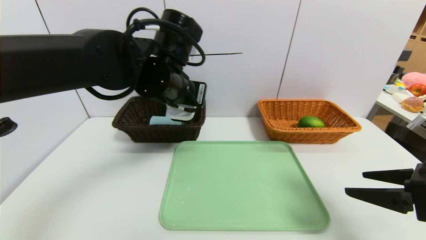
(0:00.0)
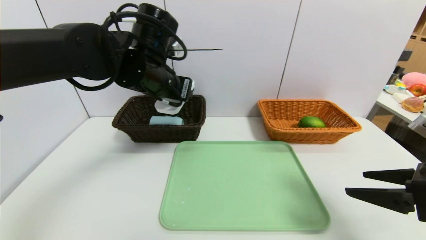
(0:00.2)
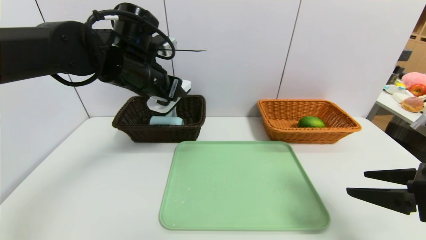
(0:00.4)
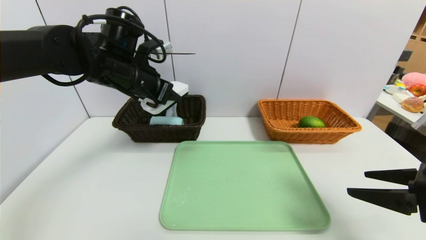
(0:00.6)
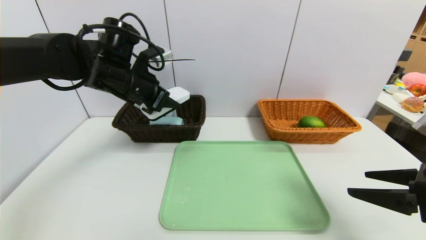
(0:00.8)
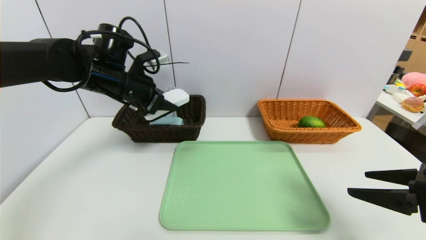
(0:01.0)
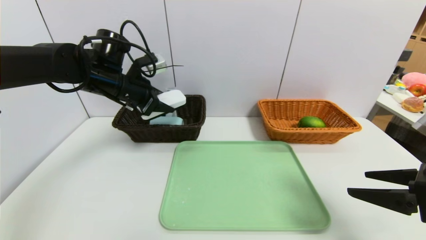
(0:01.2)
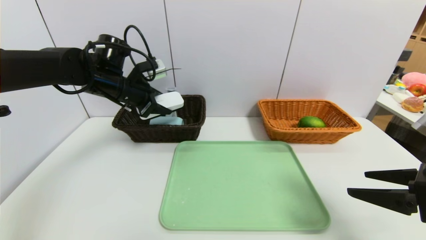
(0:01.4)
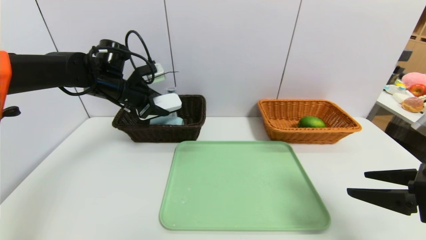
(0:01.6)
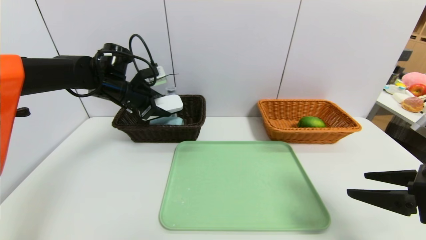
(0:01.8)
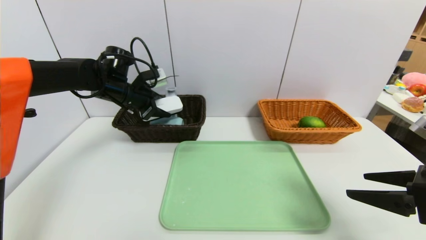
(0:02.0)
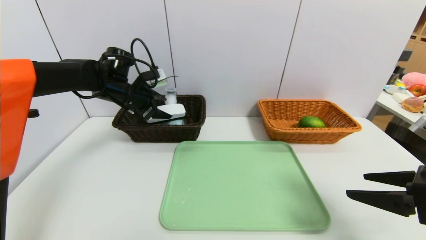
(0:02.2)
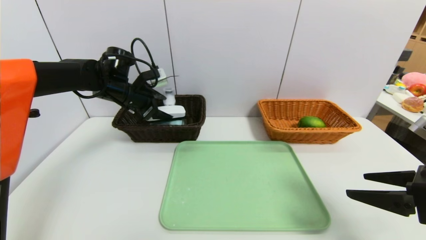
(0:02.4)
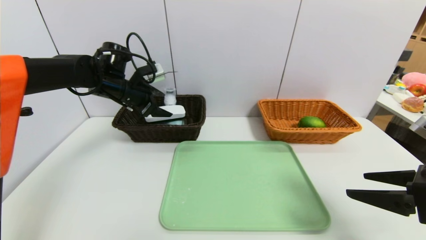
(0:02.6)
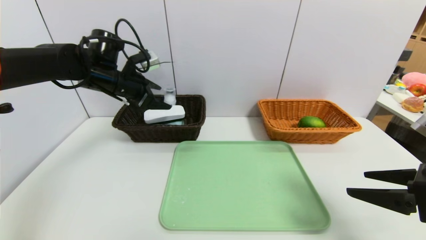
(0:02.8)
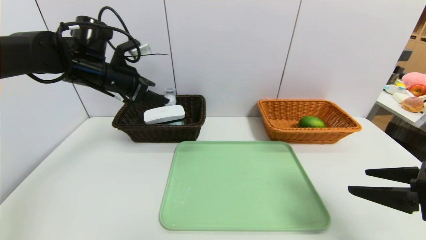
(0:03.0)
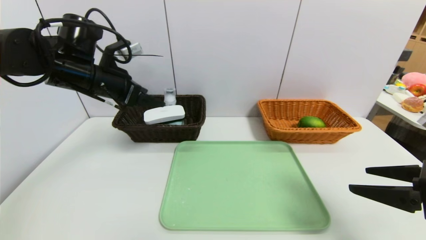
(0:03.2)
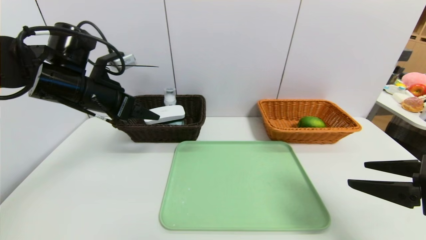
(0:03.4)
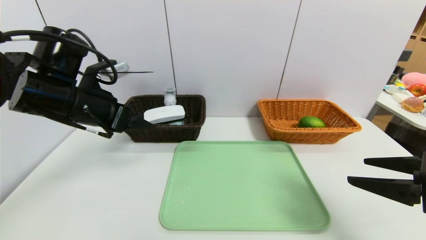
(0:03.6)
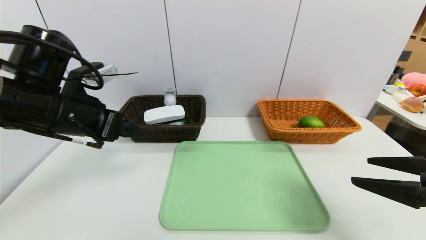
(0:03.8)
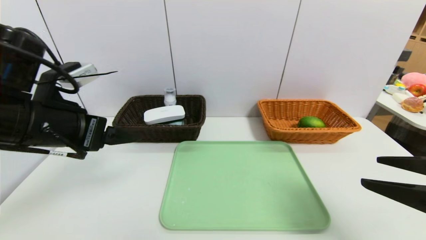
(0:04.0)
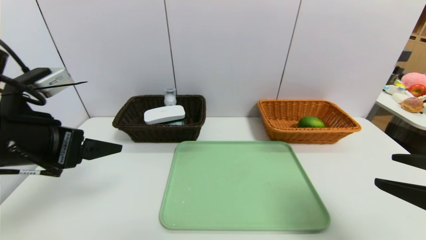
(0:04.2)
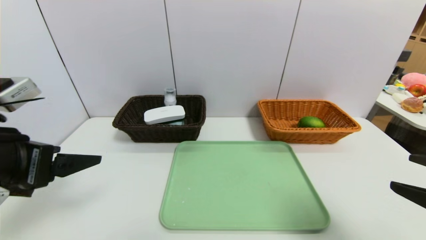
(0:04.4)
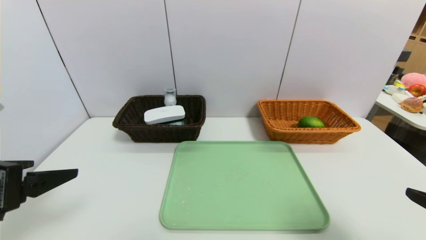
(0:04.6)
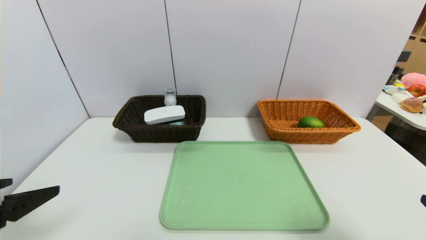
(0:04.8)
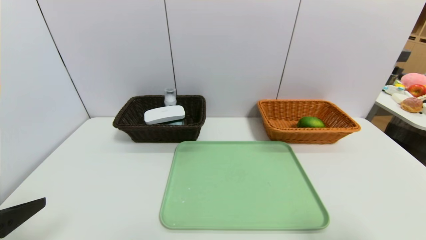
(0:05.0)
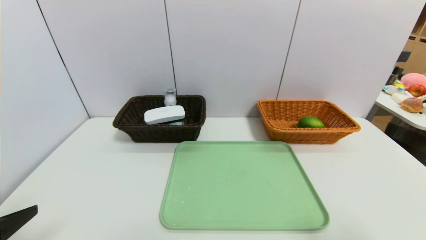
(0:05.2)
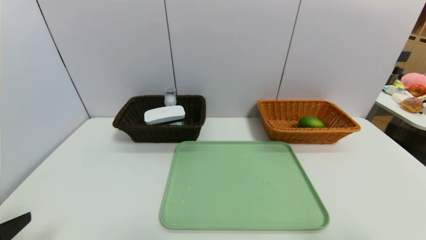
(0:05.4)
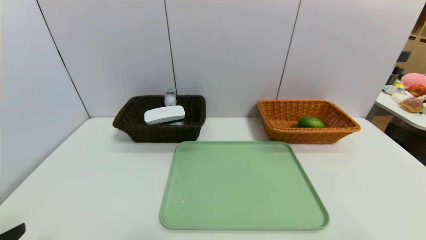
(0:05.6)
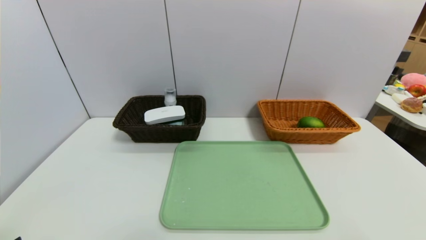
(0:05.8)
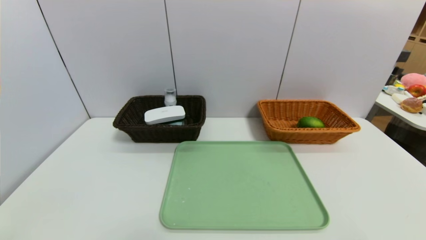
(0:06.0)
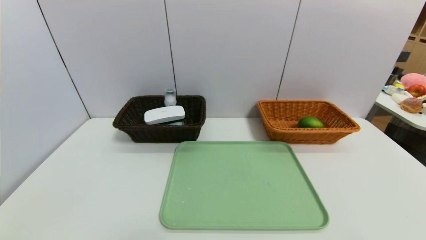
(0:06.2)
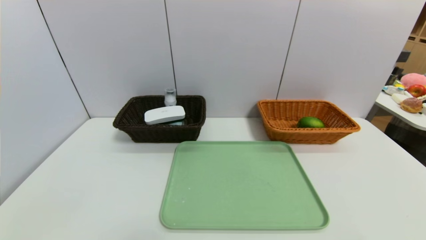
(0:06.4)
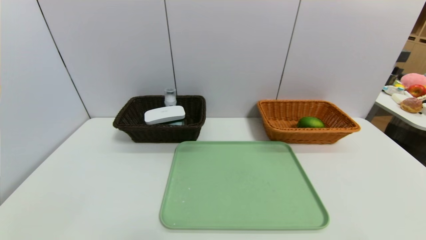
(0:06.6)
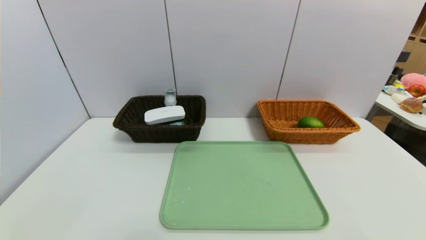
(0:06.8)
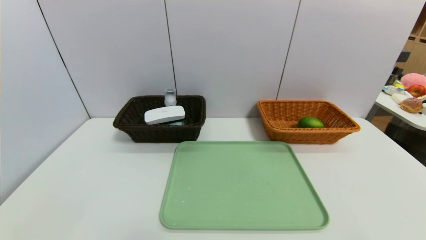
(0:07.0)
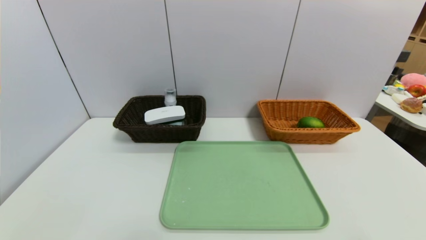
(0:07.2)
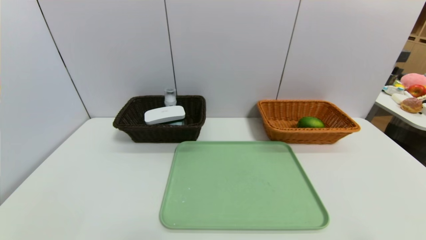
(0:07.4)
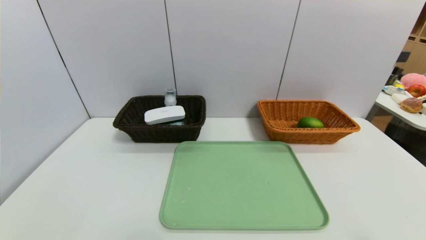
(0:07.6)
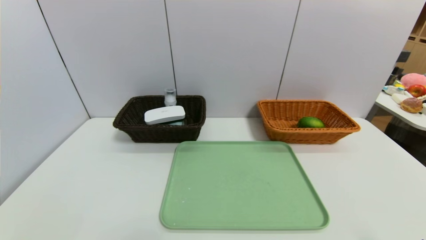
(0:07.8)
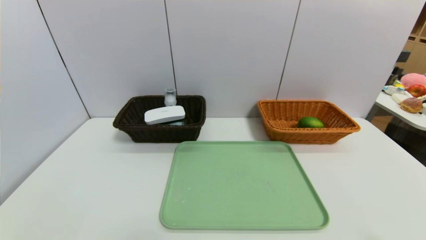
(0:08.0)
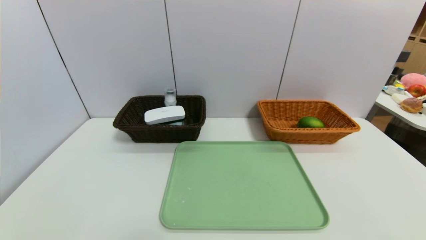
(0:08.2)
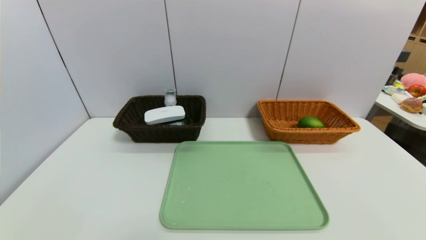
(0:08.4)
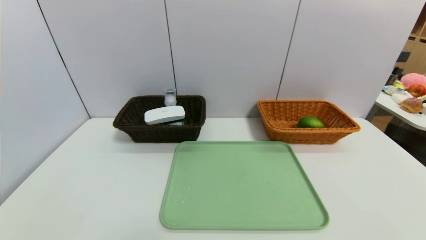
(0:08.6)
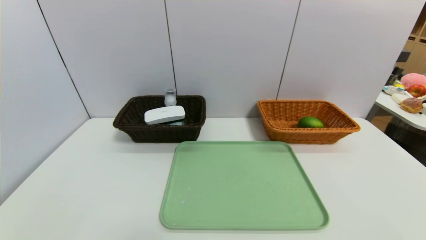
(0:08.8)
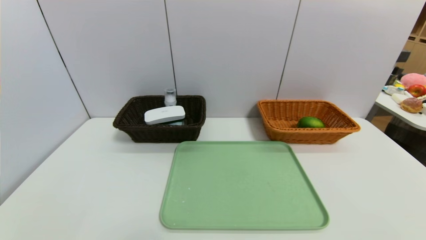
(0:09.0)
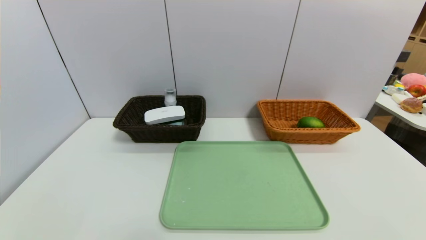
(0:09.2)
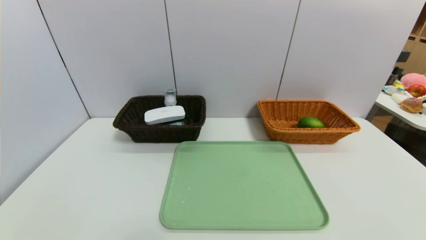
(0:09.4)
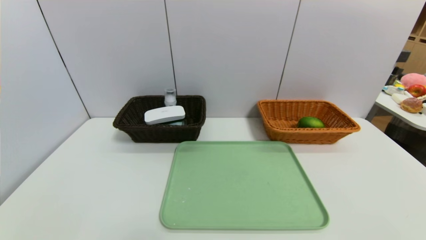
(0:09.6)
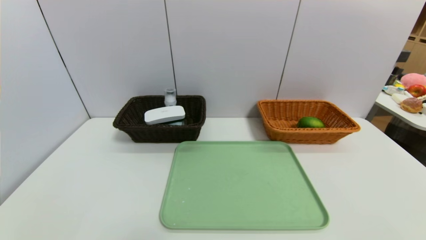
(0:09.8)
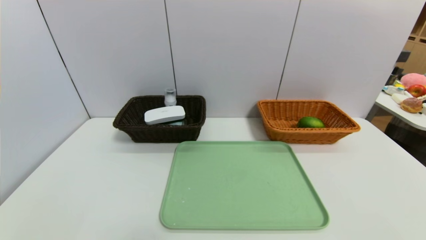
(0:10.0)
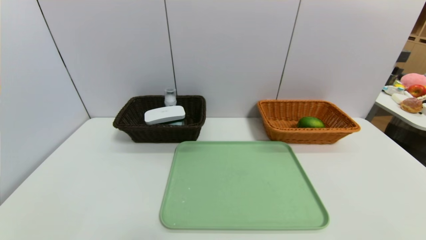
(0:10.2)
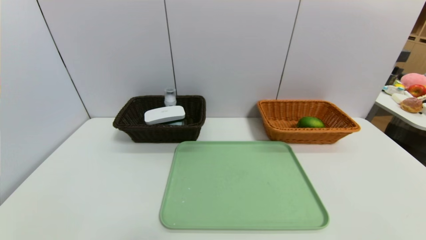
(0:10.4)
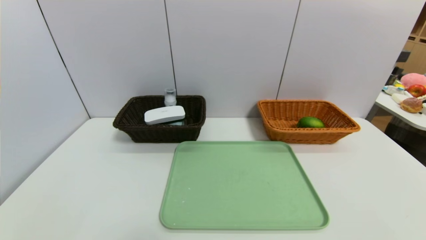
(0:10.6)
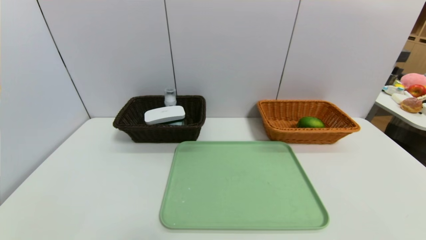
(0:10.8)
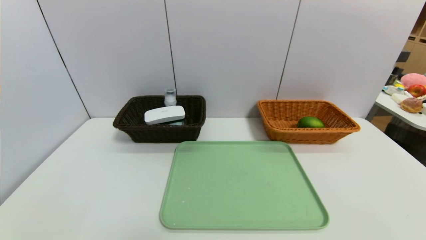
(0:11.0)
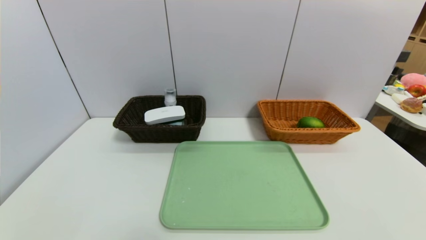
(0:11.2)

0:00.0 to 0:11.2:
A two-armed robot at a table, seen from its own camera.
Task of the whole recording: place the food in the right basket with the right gripper, and place the non food items in the left basket with the left gripper.
Step, 0:00.0 to 0:03.2: Grasp the white eraser and put it in the left basket.
0:00.0 to 0:01.6: The left gripper travels to the left and forward by about 15 cm.
0:01.6 to 0:03.2: The left gripper heads backward, covering roughly 5 cm, and opens its fingers.
0:03.2 to 0:04.8: The right gripper goes some 10 cm backward. The left gripper goes roughly 25 cm backward.
0:04.8 to 0:06.4: The left gripper travels downward and backward by about 15 cm, while the right gripper travels backward by approximately 5 cm.

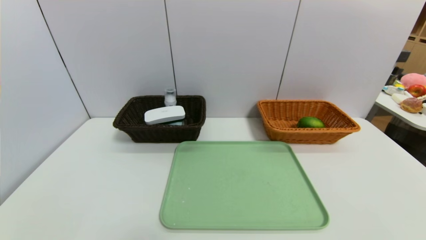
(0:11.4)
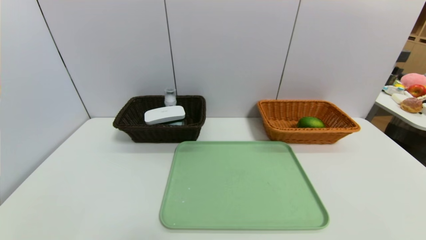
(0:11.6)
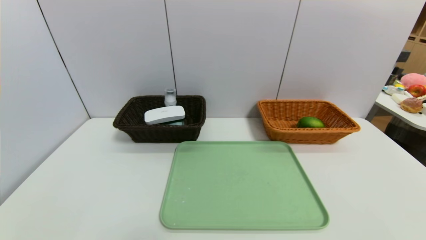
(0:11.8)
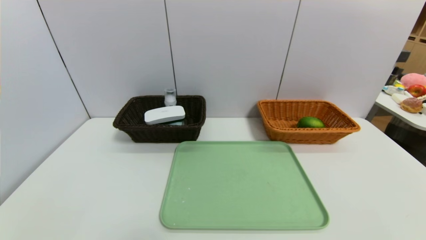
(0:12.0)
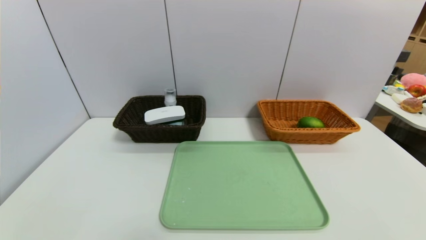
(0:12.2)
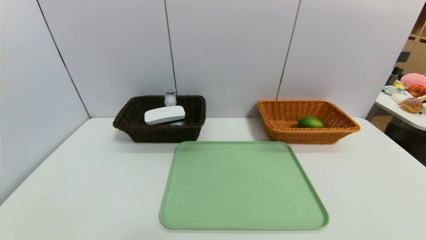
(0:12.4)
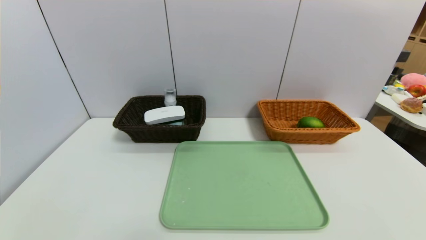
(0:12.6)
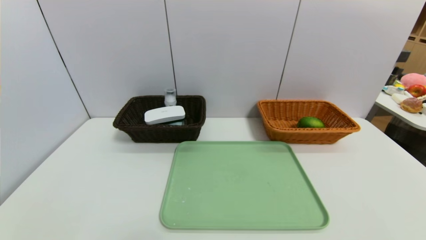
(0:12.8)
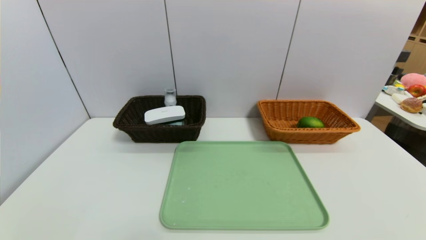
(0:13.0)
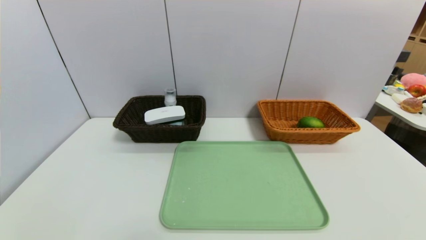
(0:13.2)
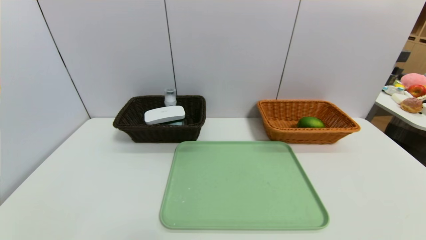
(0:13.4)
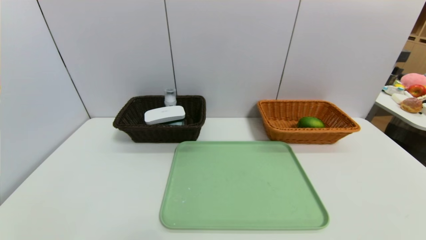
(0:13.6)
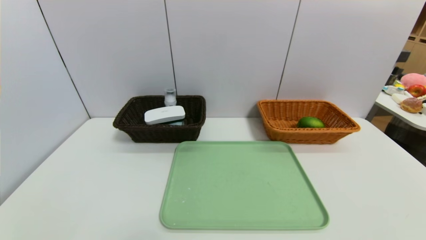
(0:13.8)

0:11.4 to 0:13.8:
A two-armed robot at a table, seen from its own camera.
Task of the whole recording: place the food in the right basket with the right gripper, and place the non food items in the left basket with the left gripper.
0:11.4 to 0:13.8: Neither gripper changes place.

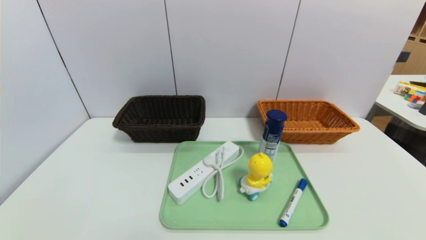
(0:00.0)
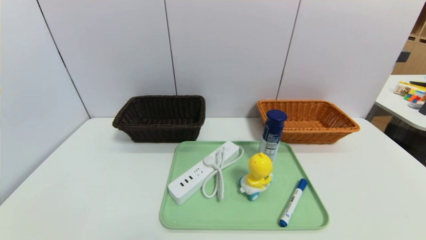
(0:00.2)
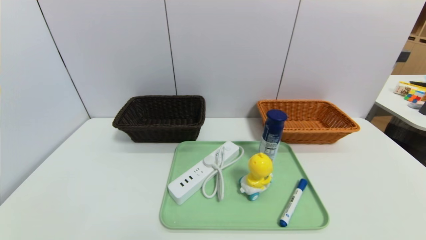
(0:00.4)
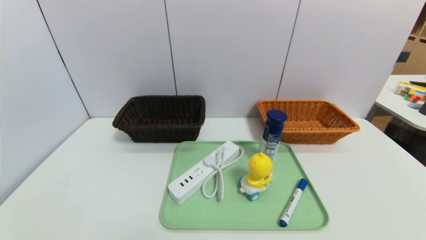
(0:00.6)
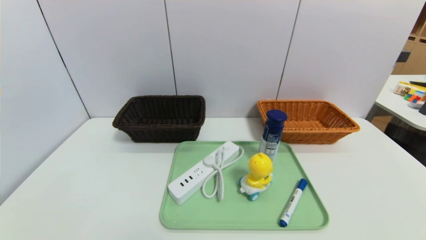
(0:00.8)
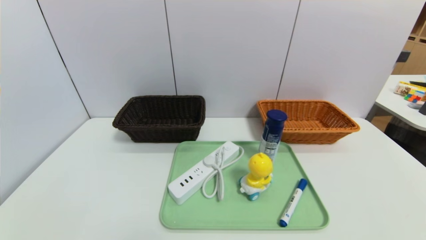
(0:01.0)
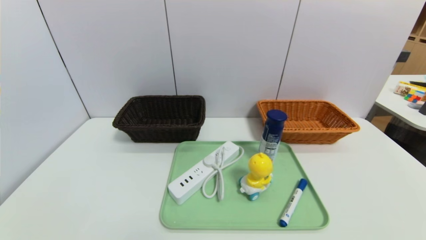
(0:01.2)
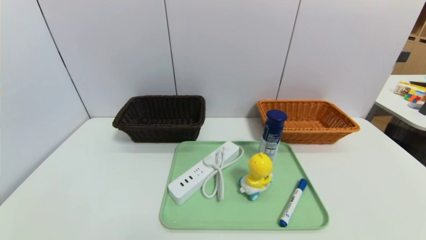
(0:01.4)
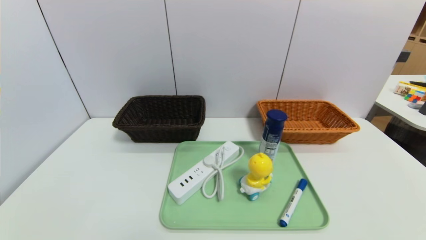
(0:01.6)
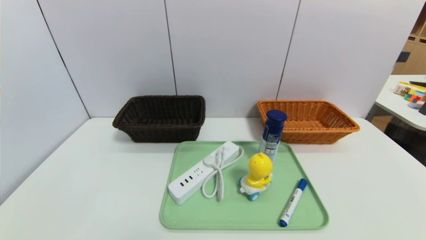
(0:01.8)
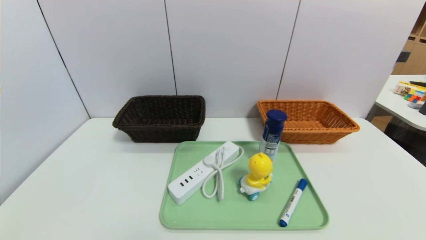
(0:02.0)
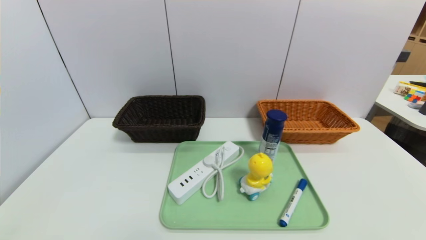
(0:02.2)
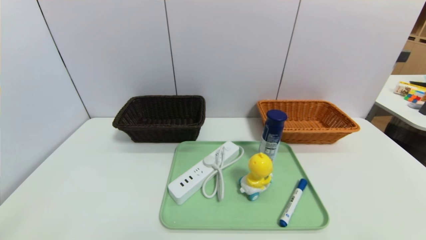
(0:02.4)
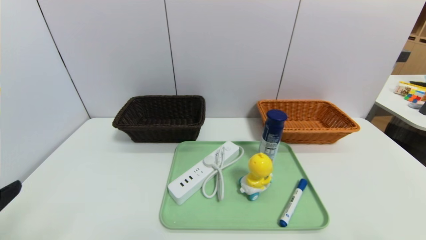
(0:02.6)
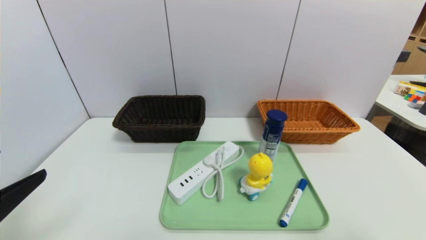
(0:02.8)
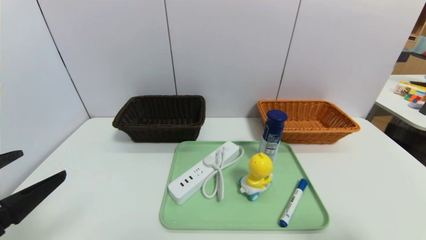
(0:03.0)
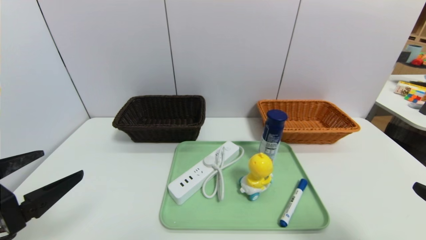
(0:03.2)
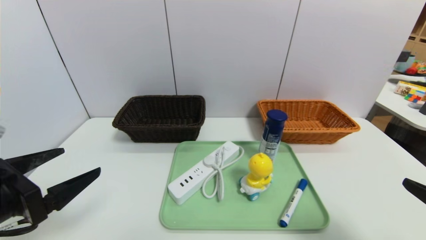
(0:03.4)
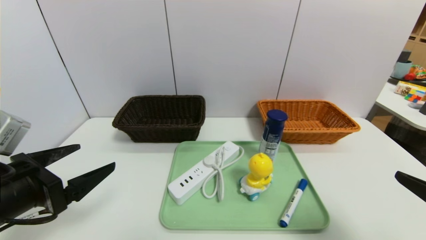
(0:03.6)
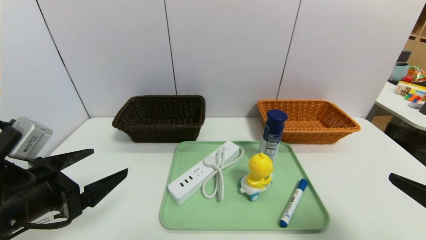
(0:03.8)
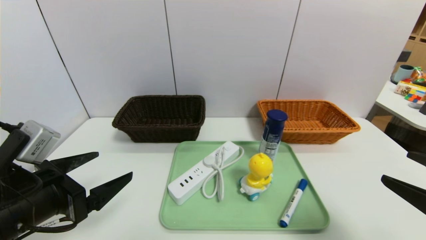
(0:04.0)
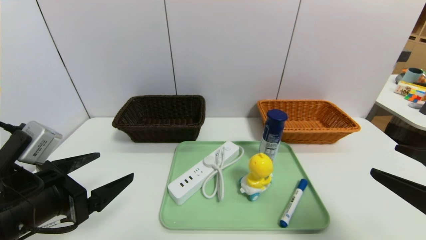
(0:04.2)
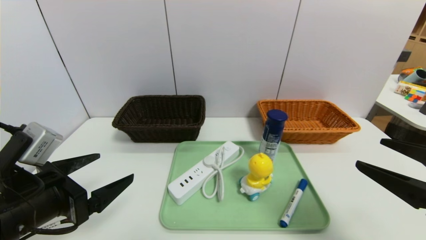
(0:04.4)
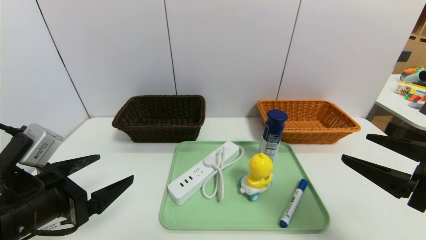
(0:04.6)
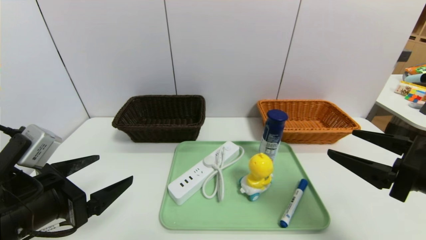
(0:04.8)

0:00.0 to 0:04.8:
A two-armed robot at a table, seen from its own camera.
Task of the whole recording: place the food in the right basket with the right gripper, and place the non food items in the left basket with the left gripper.
0:01.6 to 0:03.2: Both grippers move upward and forward, some 15 cm.
0:03.2 to 0:04.8: The right gripper heads forward, covering roughly 10 cm, while the left gripper shifts by some 5 cm.
